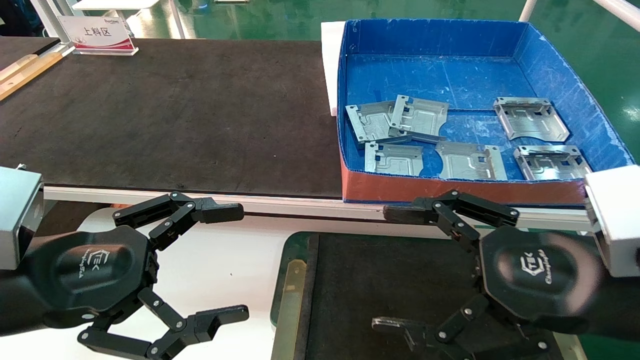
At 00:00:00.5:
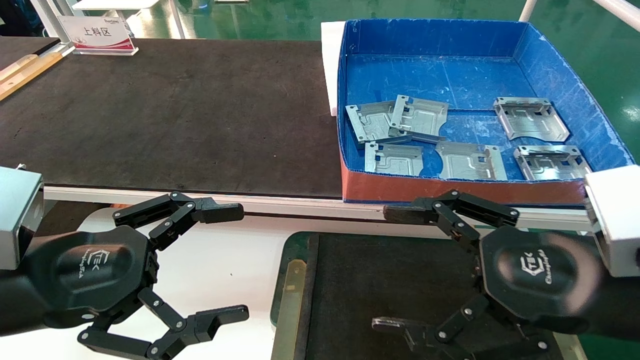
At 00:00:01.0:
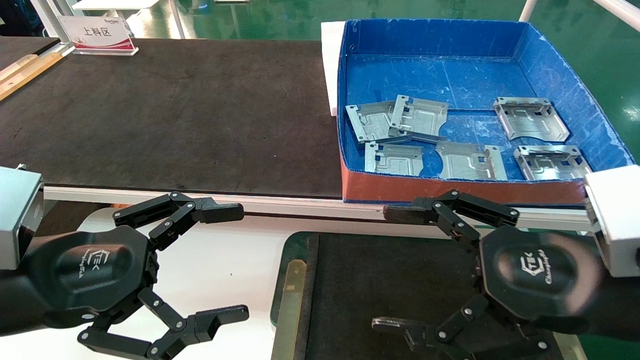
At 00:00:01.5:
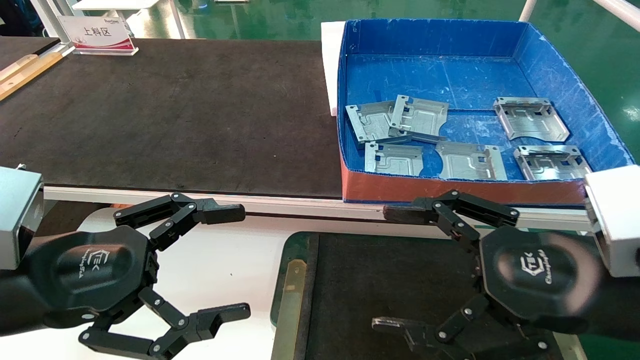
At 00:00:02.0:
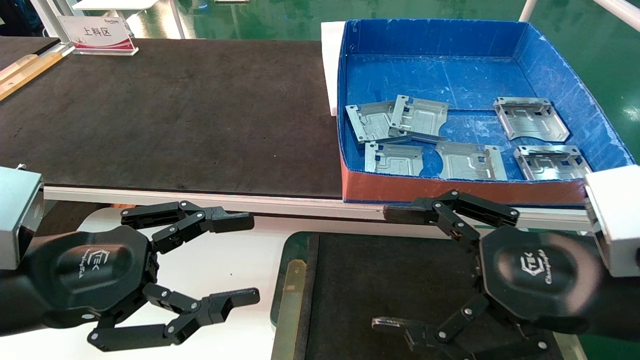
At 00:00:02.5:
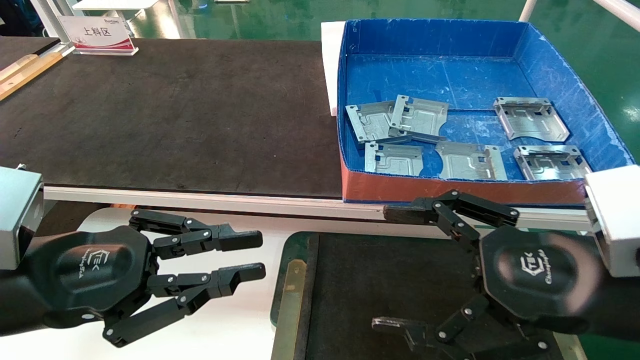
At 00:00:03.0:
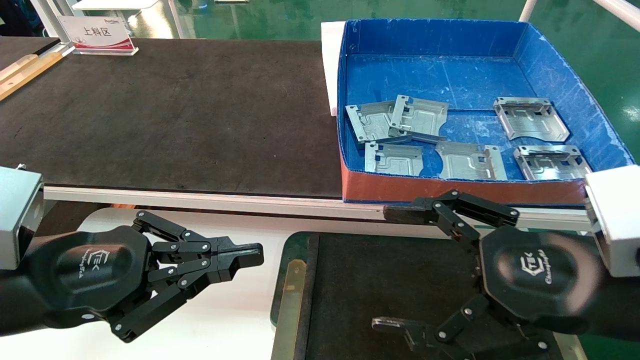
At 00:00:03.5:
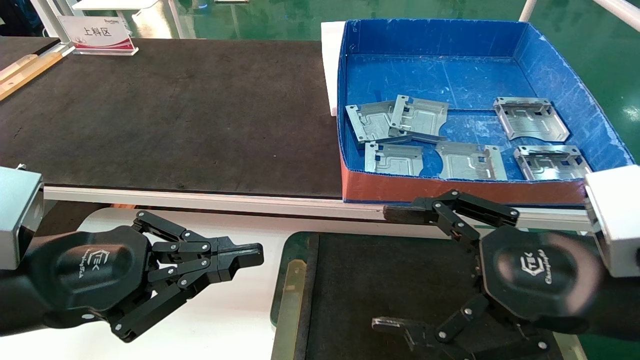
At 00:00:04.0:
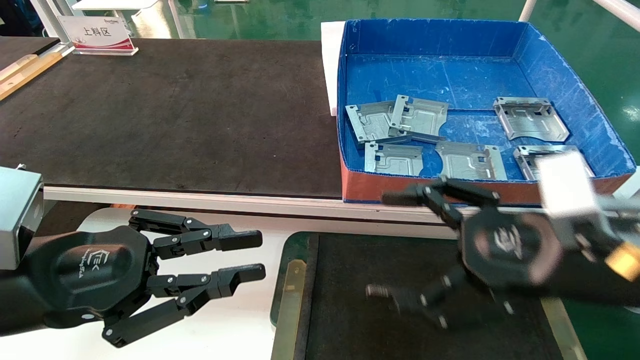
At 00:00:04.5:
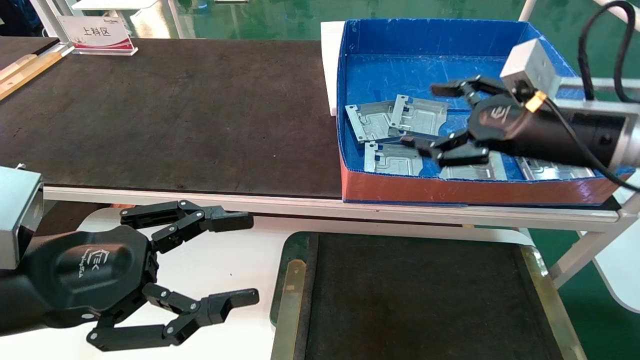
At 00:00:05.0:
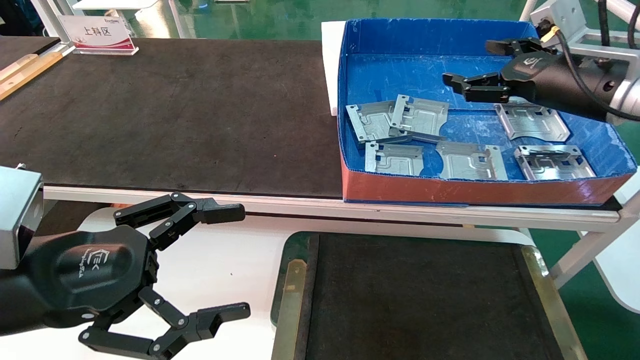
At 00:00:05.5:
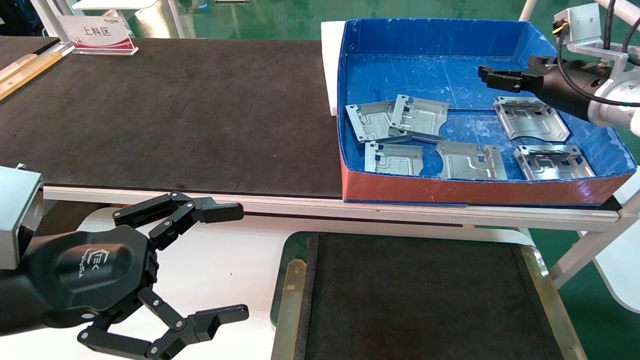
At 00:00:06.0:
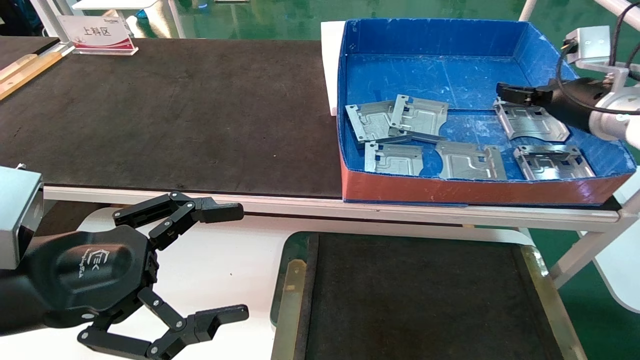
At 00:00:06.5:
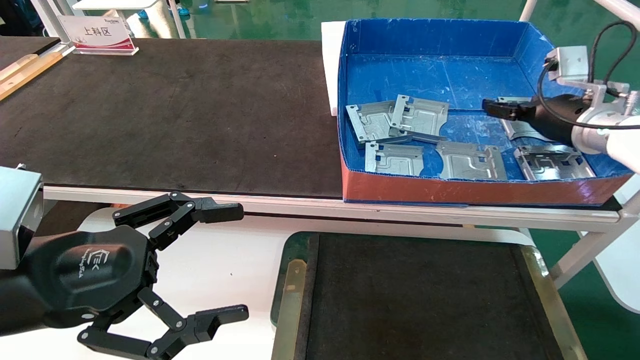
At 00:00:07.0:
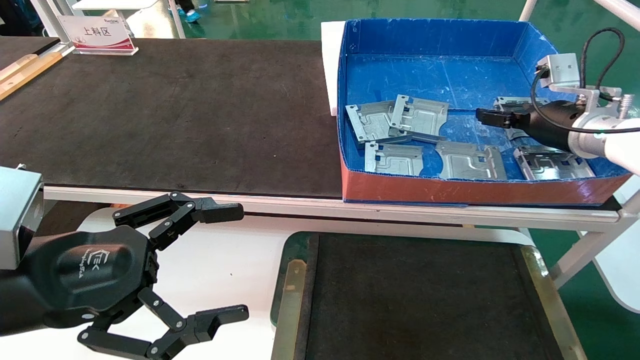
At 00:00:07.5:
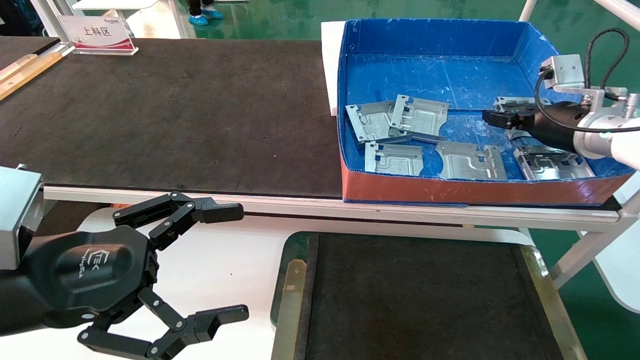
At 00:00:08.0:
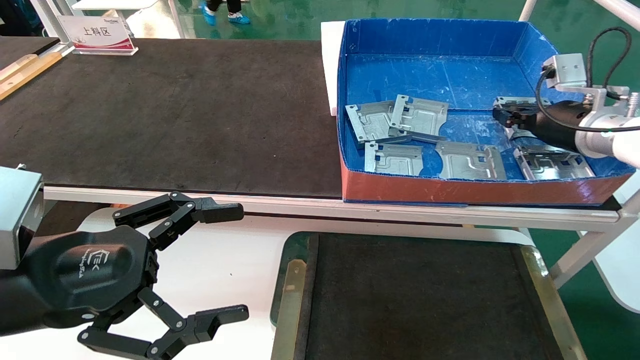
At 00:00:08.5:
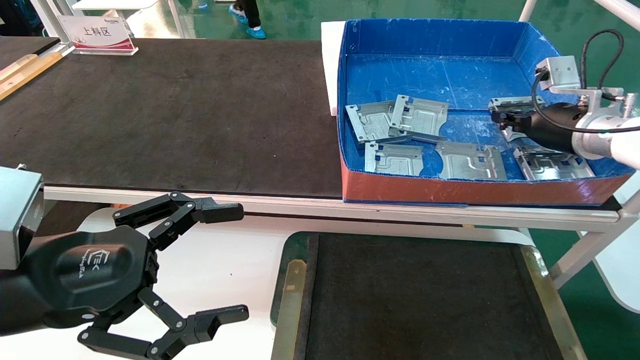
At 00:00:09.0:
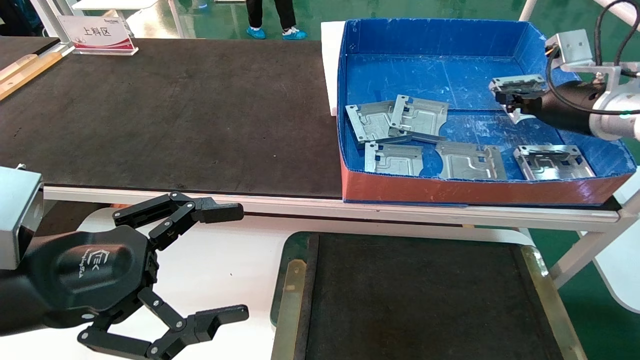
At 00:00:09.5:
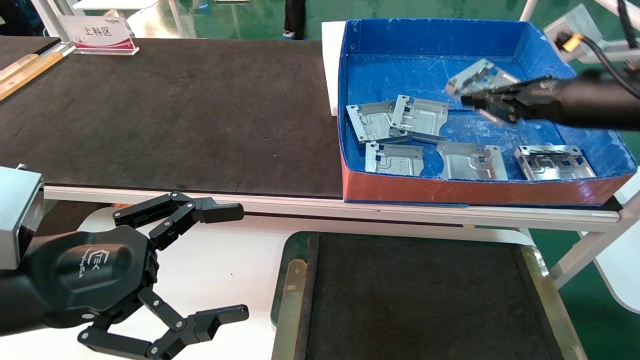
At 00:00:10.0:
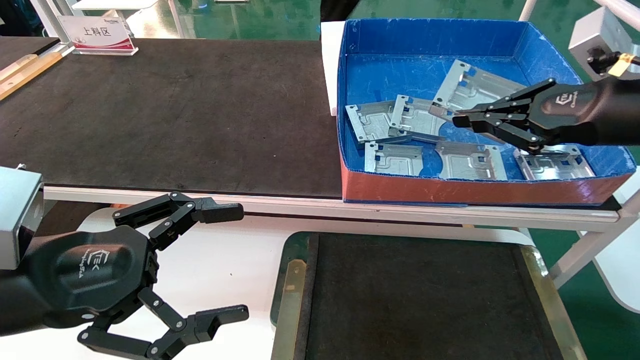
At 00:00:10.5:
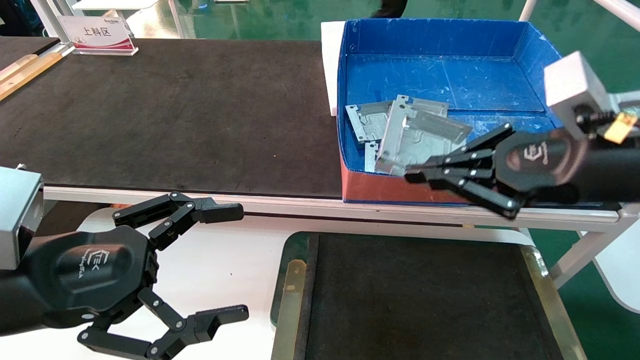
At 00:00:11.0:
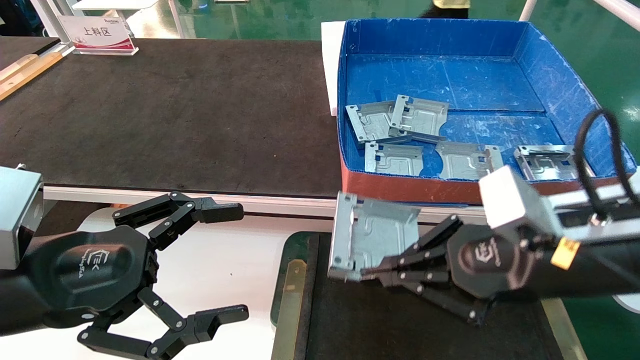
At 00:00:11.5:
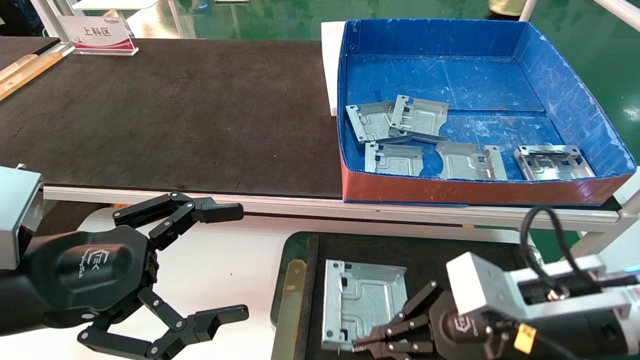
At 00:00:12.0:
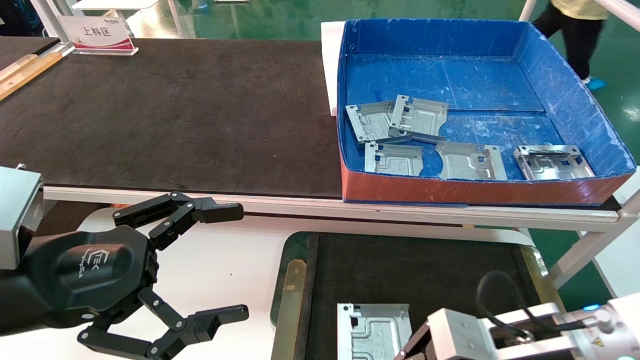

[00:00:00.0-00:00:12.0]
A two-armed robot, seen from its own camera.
Task of the whole recording: pick up parts and place them into a black container.
Step, 00:00:04.5 to 00:00:08.5: Pick up the hard drive bracket from the feeding area.
00:00:00.0 to 00:00:02.0: Both grippers stay put.
00:00:02.0 to 00:00:04.0: The left gripper closes up.
00:00:04.0 to 00:00:06.0: The right gripper moves forward and to the right, roughly 25 cm, while the left gripper opens up.
00:00:06.0 to 00:00:08.0: The right gripper closes up.
00:00:08.0 to 00:00:10.0: The right gripper is displaced backward by roughly 15 cm, and closes its fingers.
00:00:10.0 to 00:00:12.0: The right gripper heads downward and to the left, covering about 25 cm.

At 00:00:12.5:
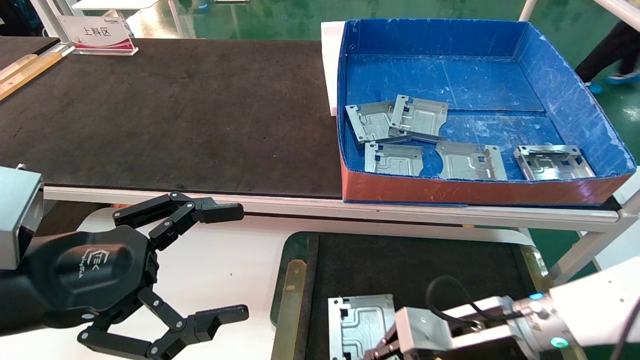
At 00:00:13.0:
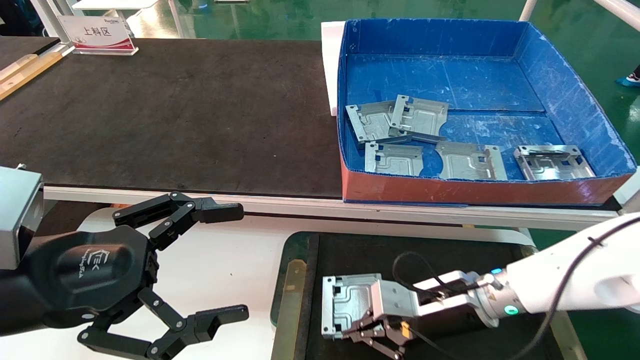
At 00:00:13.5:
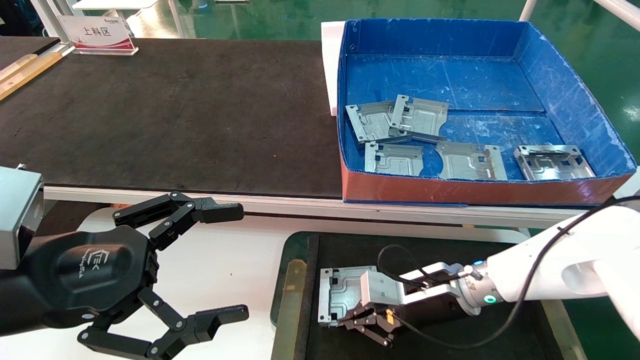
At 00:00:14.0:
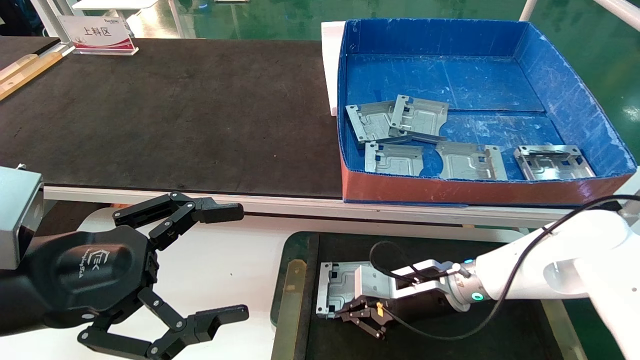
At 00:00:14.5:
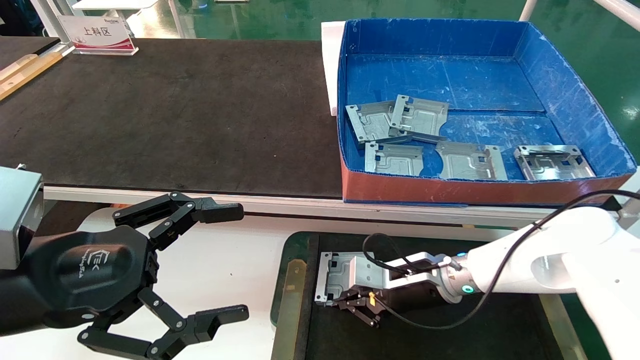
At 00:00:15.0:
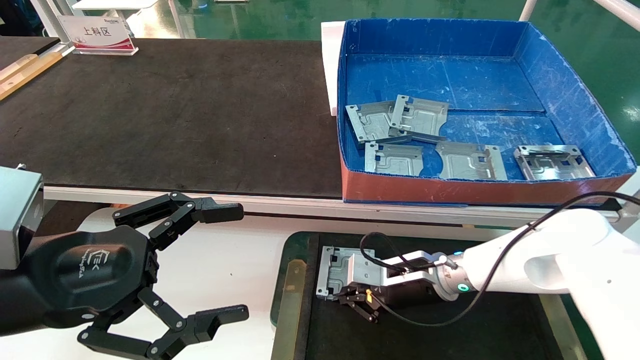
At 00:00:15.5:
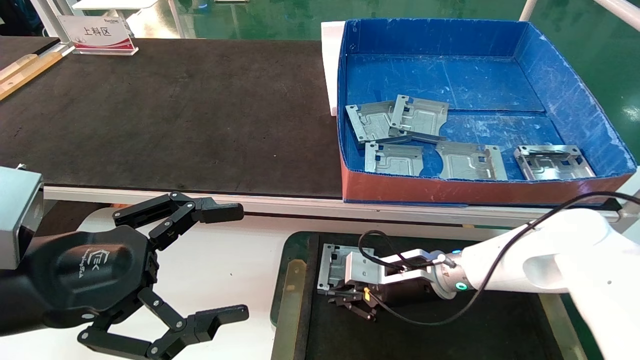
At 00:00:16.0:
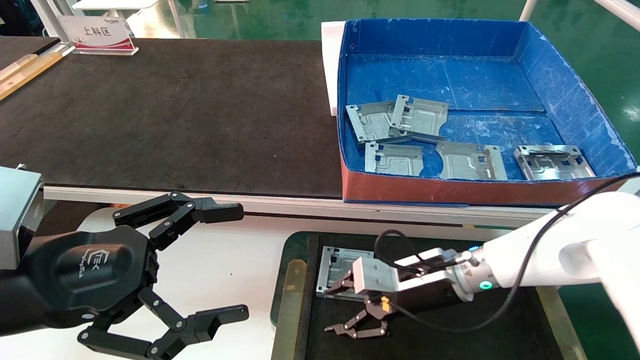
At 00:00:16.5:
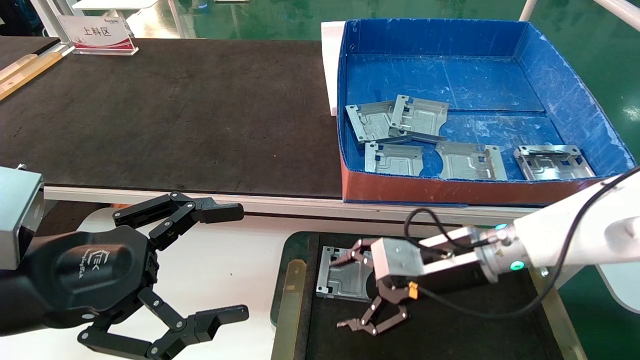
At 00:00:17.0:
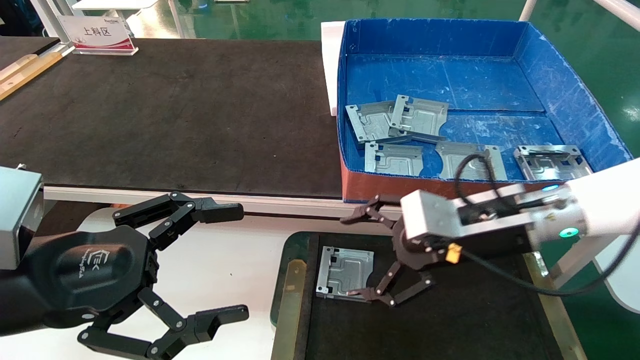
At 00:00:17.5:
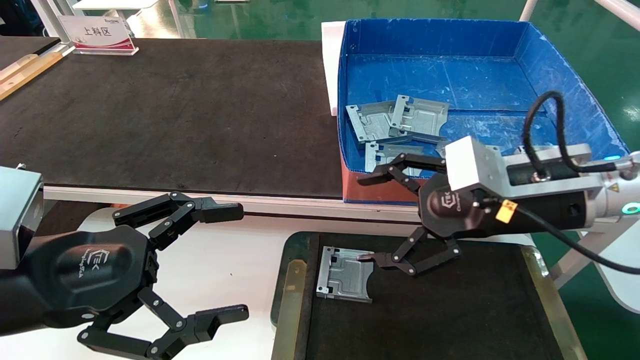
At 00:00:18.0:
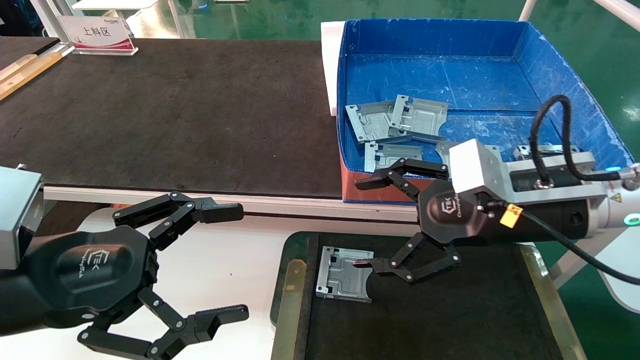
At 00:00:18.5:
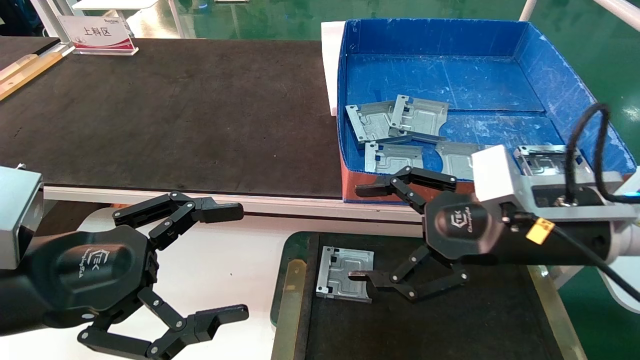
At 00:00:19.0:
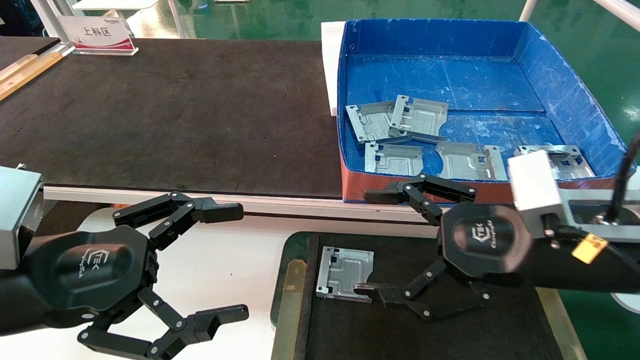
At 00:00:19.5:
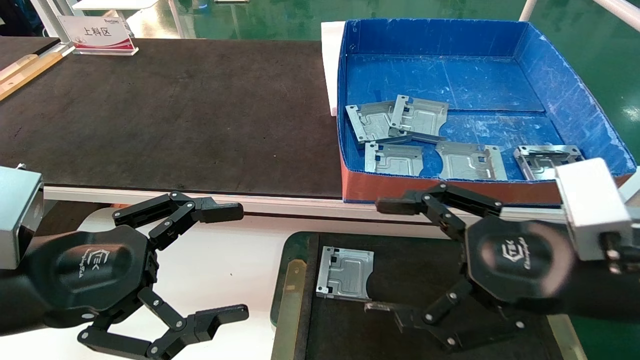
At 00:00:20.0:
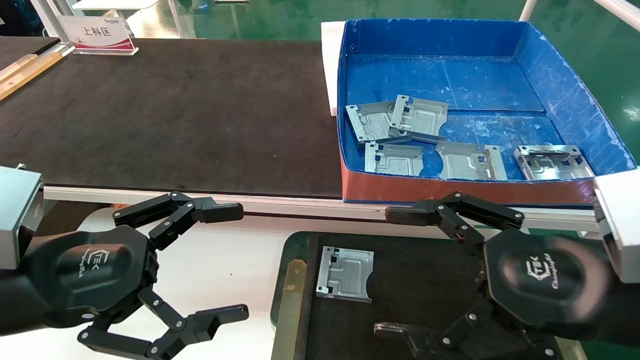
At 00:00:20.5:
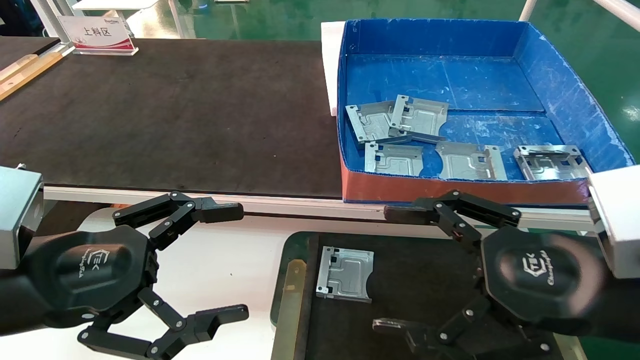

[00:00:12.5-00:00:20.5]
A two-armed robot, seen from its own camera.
Task of the whole recording: pick up parts and place them into a black container.
Step, 00:00:12.5 to 00:00:15.5: Place the hard drive bracket into the box.
00:00:12.5 to 00:00:14.5: The right gripper goes roughly 10 cm forward.
00:00:14.5 to 00:00:16.5: The right gripper travels upward by roughly 10 cm, and opens its fingers.
00:00:16.5 to 00:00:18.5: The right gripper travels backward and upward by roughly 15 cm.
00:00:18.5 to 00:00:20.5: The right gripper travels backward by some 10 cm.
